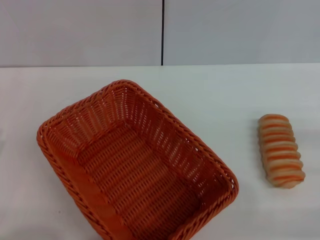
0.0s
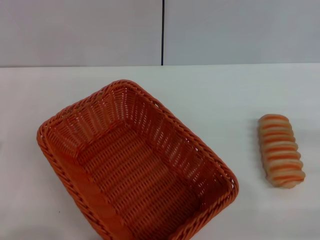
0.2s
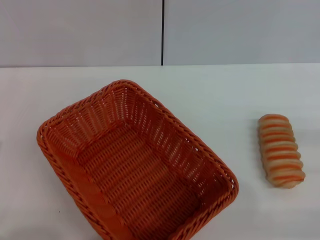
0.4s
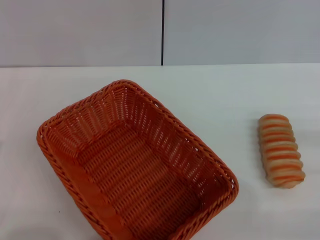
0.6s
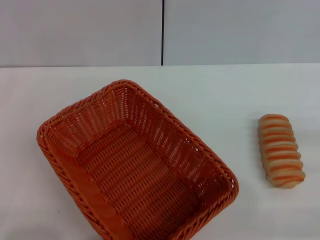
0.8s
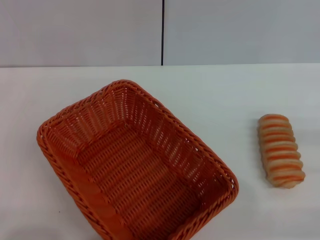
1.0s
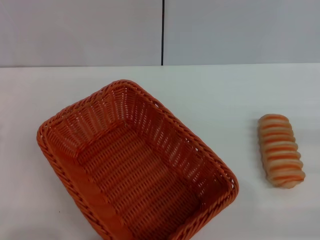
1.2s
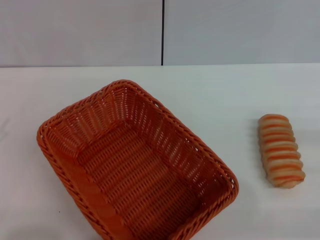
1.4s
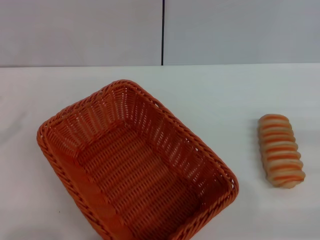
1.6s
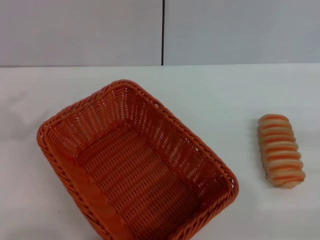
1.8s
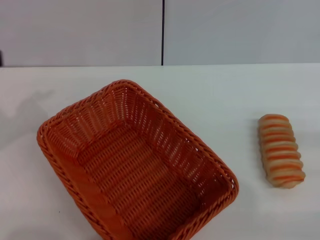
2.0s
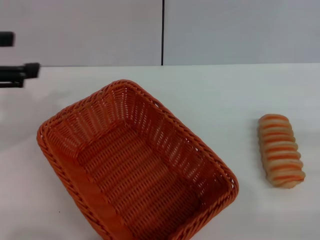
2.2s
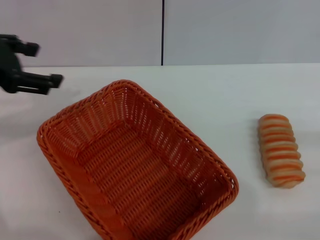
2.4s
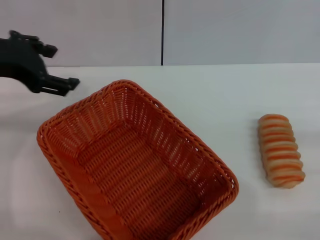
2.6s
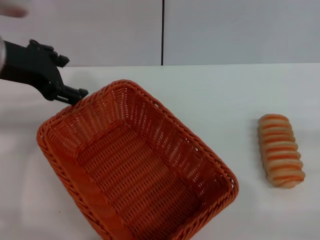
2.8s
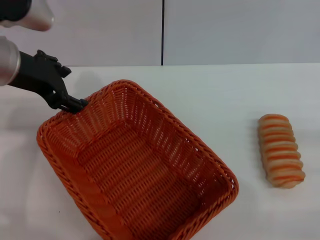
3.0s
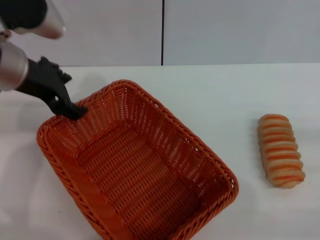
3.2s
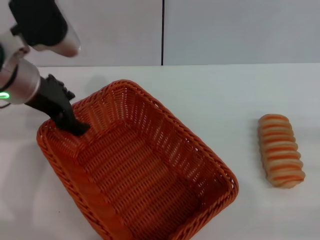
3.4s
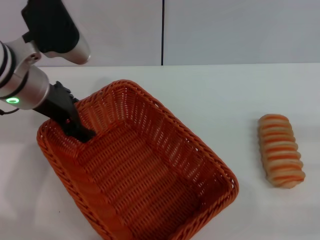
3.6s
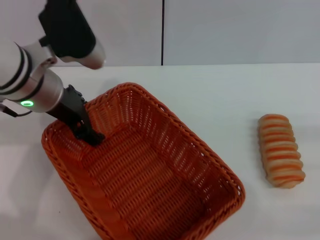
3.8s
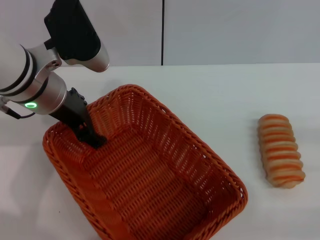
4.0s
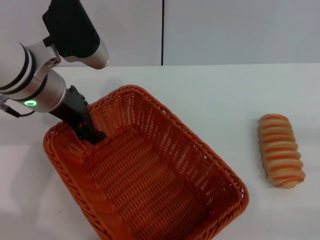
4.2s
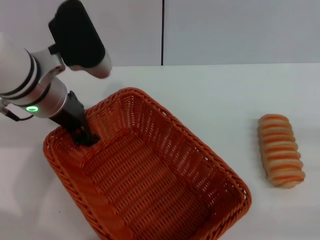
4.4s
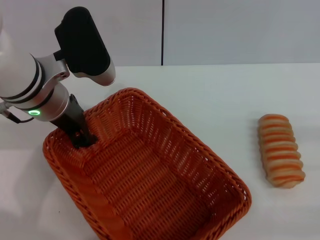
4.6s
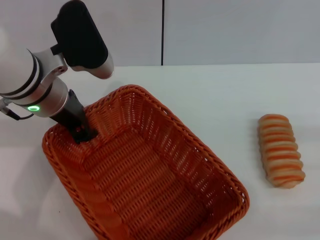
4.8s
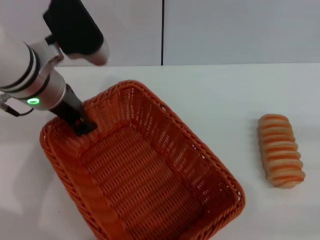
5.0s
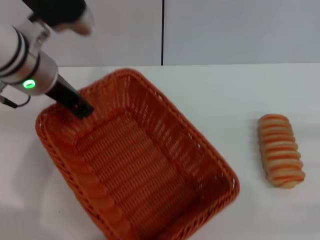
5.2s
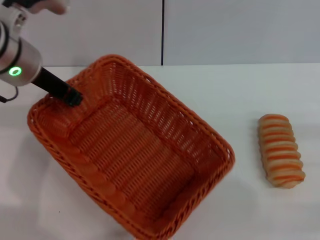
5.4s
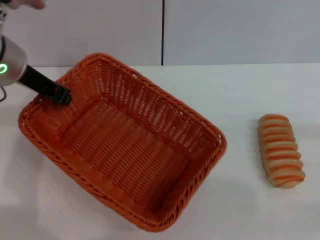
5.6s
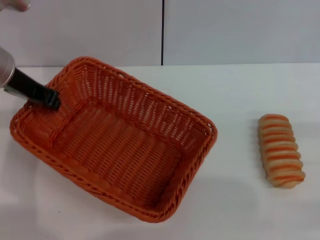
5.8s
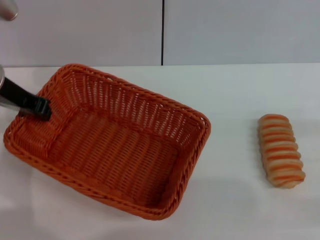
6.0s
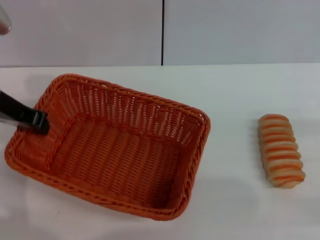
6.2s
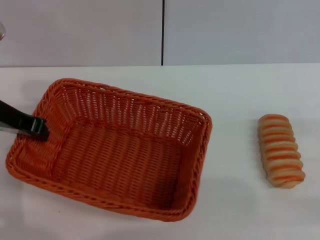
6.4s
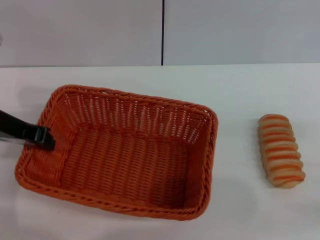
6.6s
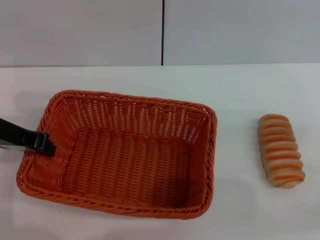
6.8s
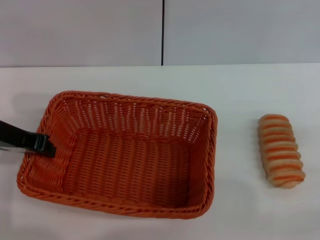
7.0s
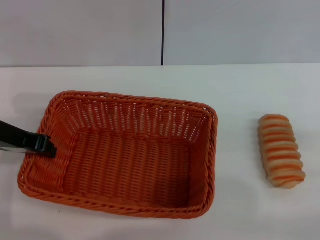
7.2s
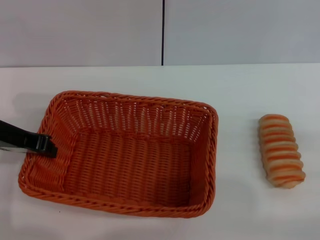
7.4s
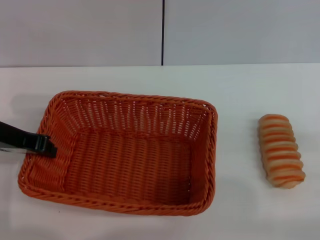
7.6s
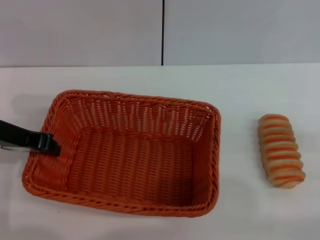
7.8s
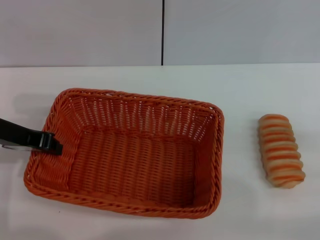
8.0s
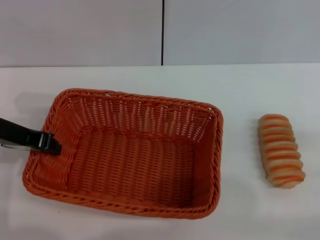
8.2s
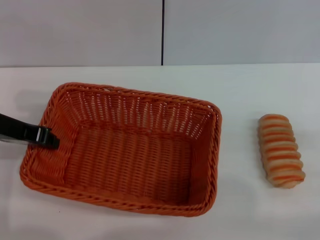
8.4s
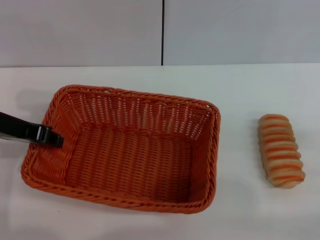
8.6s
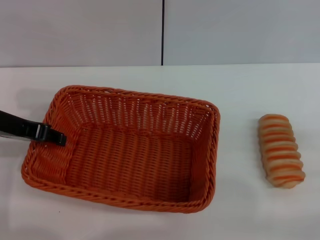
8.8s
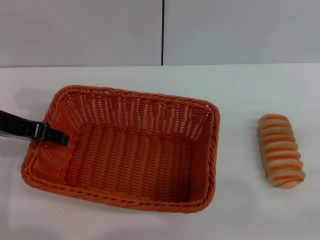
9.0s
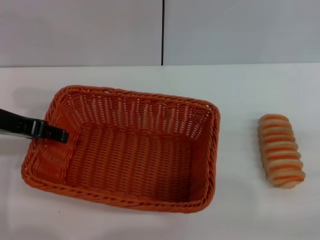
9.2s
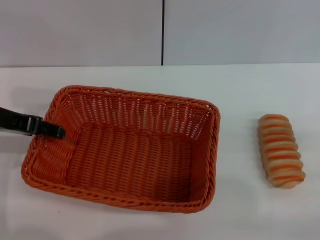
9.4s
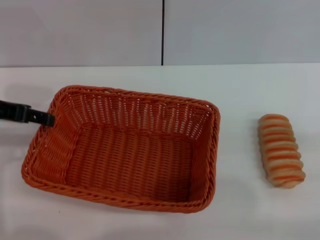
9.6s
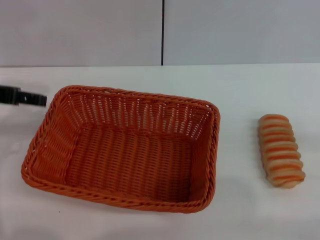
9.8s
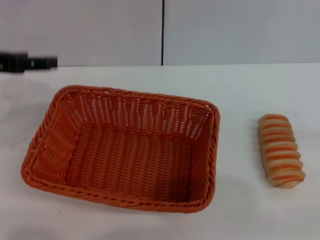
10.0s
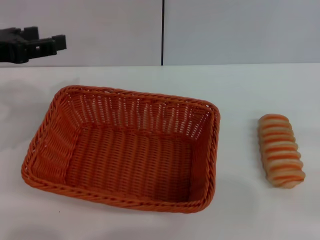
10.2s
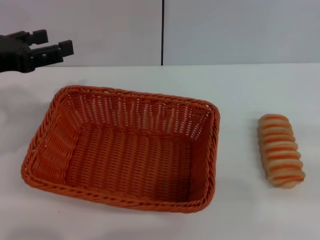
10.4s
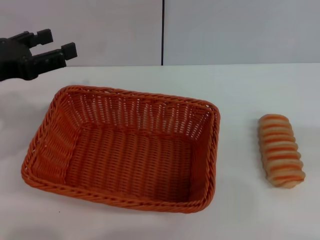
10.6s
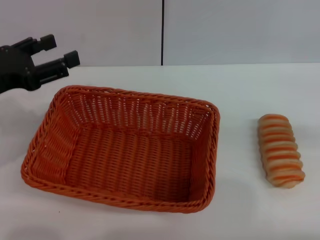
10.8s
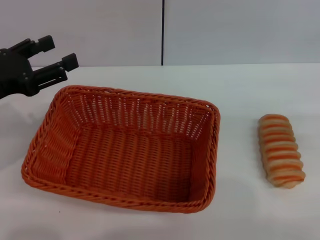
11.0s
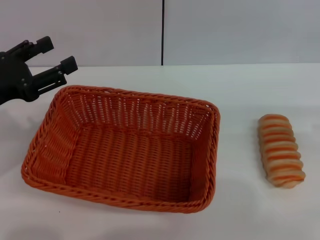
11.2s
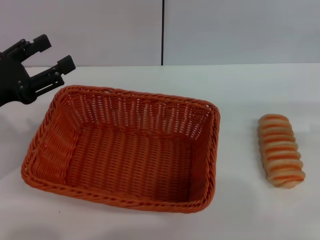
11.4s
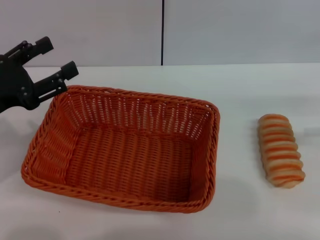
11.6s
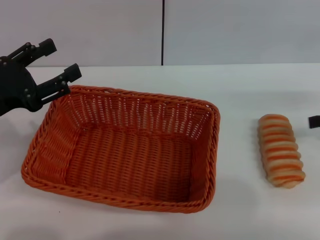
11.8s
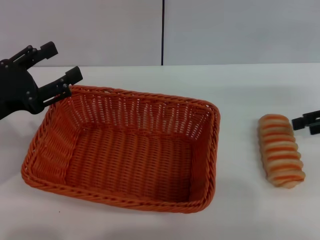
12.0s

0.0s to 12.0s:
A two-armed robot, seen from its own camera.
Step, 0.0s to 5.4s: Pick up the light basket with the left gripper.
Step, 5.6s to 9.6s: Place the light basket in the center of view with the left gripper.
1.6s to 3.0s: The left gripper shifts about 25 cm to the right and forward.
3.0s to 4.4s: The left gripper changes place by some 5 cm.
4.4s to 6.0s: The left gripper moves to the left, approximately 10 cm, and closes its fingers.
6.0s to 7.6s: The left gripper heads backward, covering roughly 5 cm.
7.6s to 9.0s: The left gripper opens its fingers.
9.0s to 10.4s: The left gripper opens.
10.4s to 12.0s: The left gripper travels downward by some 10 cm. The right gripper is displaced forward and to the left by about 20 cm.

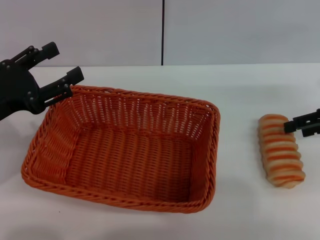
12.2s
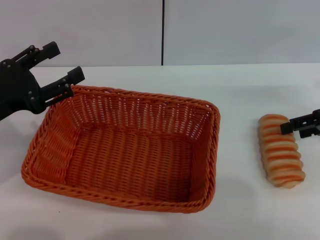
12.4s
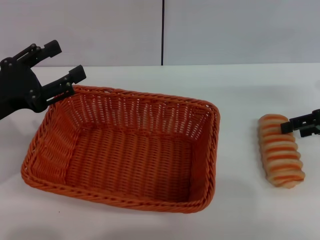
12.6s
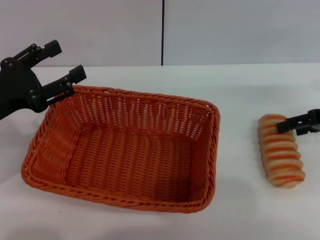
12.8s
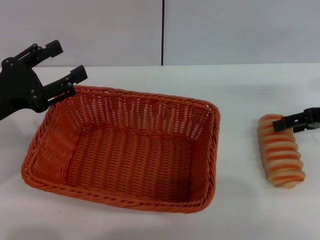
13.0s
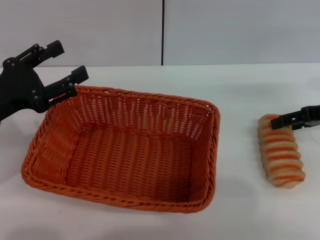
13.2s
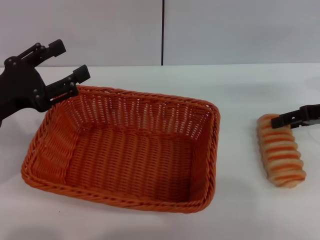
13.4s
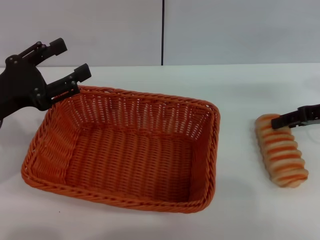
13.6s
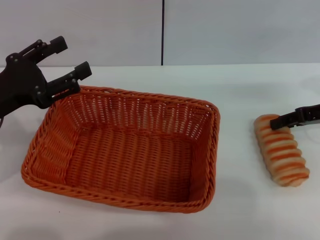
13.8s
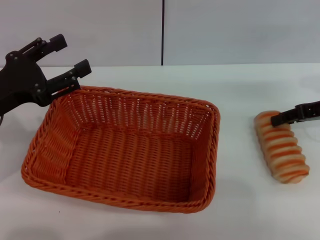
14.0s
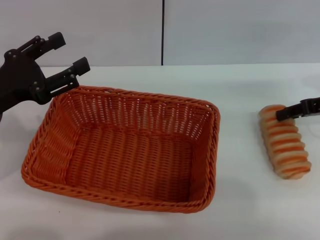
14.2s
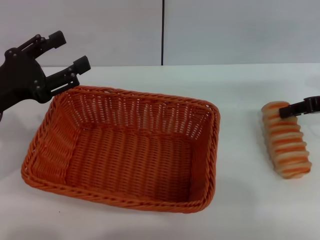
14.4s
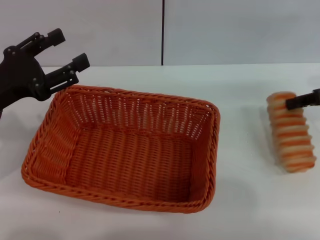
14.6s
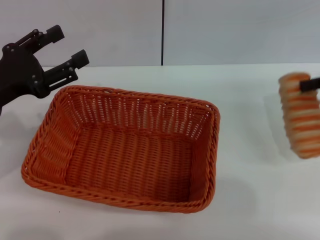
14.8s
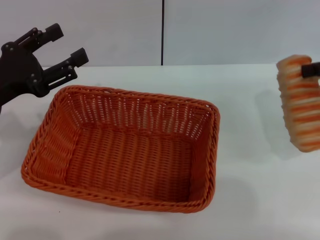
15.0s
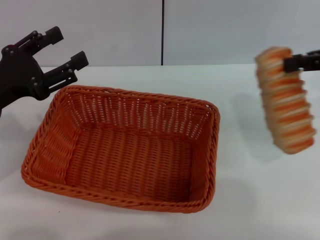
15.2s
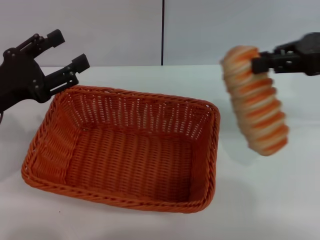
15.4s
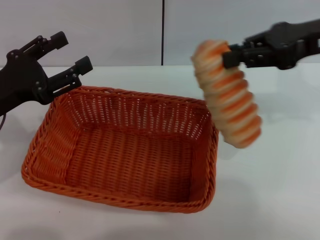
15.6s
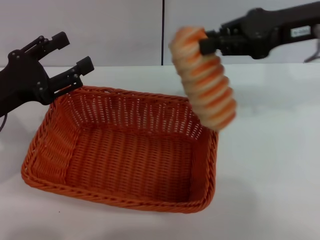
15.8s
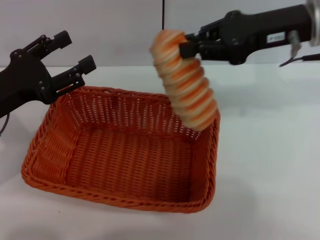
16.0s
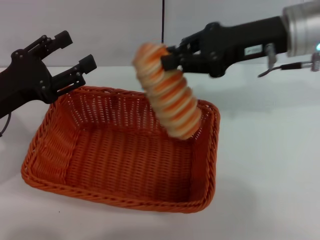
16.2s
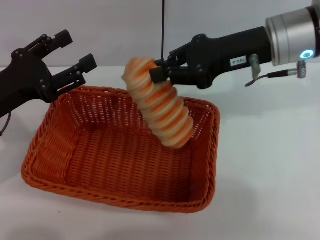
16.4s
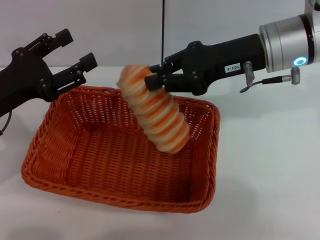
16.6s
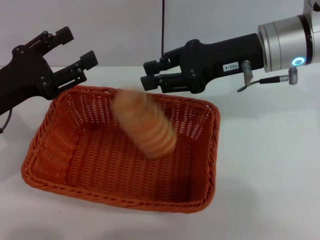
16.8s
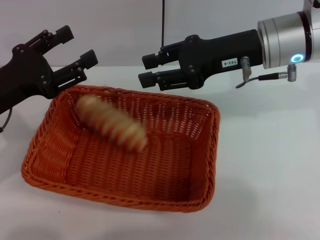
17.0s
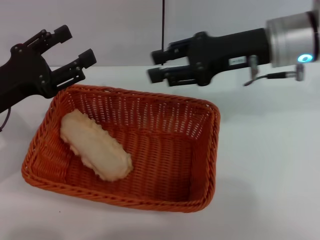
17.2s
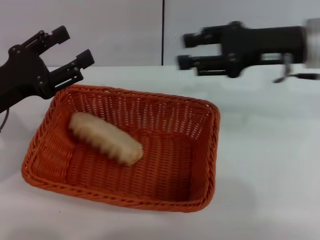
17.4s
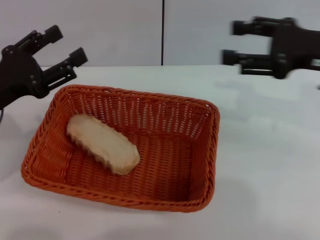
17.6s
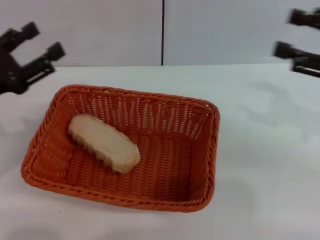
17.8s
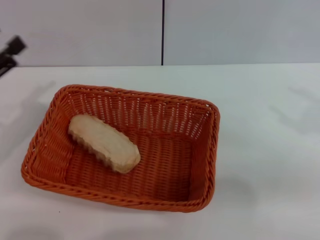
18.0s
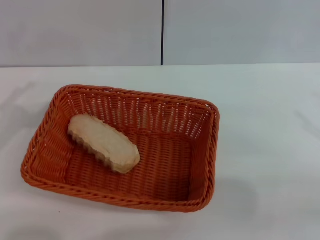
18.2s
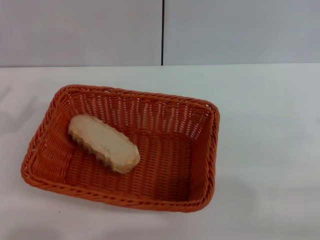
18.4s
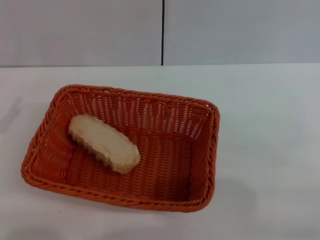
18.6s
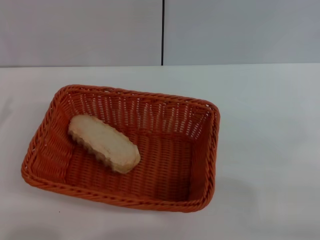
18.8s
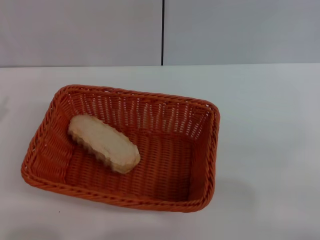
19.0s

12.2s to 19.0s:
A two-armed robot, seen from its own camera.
Step, 12.2s to 14.6s: Pick up the long bread with the right gripper.
Step, 14.8s to 17.0s: Place the long bread into the light basket with the right gripper.
12.2s to 13.6s: There are only small adjustments of the grippers.
13.6s to 15.0s: The right gripper shifts some 10 cm upward, and closes up.
15.0s to 16.2s: The right gripper shifts approximately 15 cm to the left.
16.2s to 17.6s: The right gripper is displaced to the right and backward by about 10 cm, and opens.
17.6s to 19.0s: The left gripper goes about 15 cm to the left and backward, while the right gripper goes roughly 20 cm backward, to the right and downward, and opens up.
